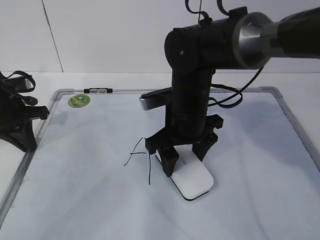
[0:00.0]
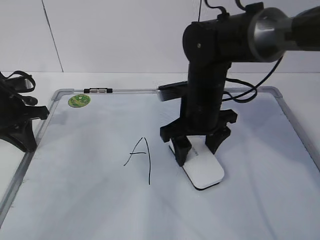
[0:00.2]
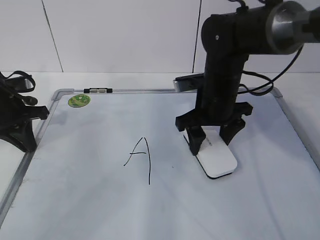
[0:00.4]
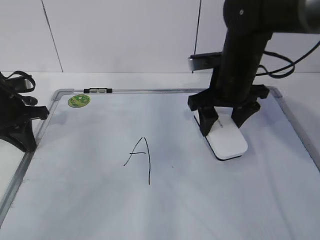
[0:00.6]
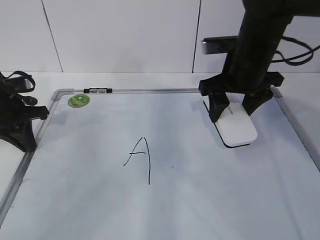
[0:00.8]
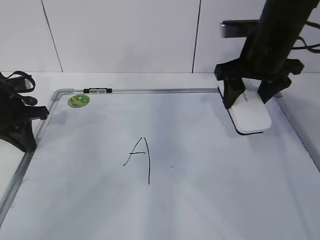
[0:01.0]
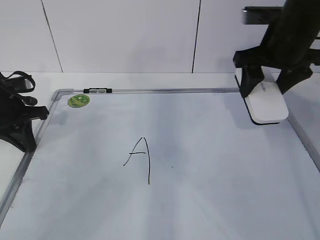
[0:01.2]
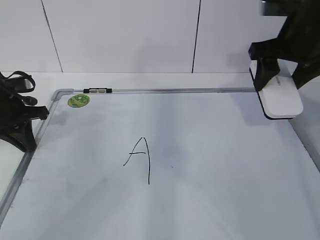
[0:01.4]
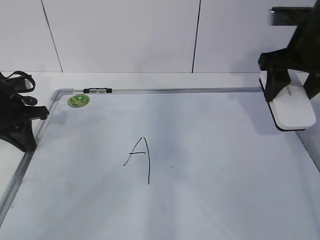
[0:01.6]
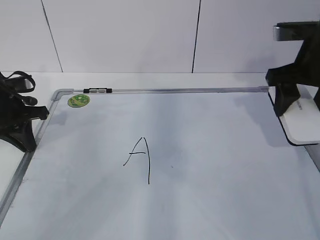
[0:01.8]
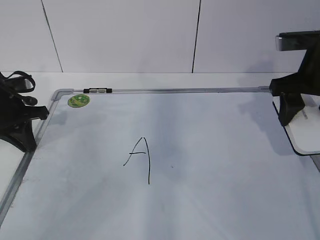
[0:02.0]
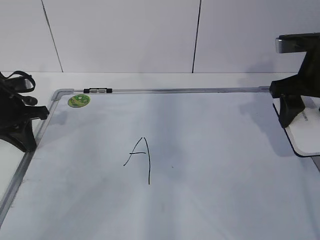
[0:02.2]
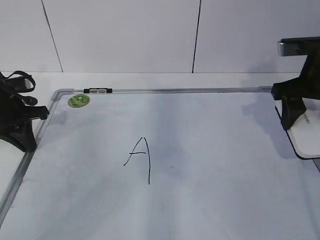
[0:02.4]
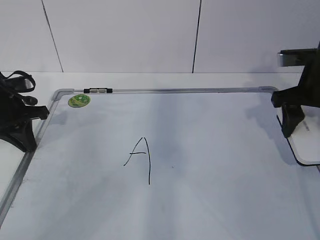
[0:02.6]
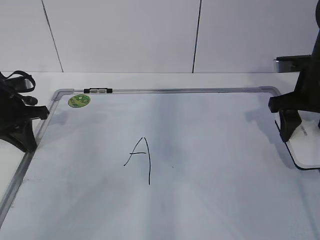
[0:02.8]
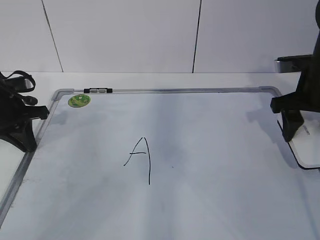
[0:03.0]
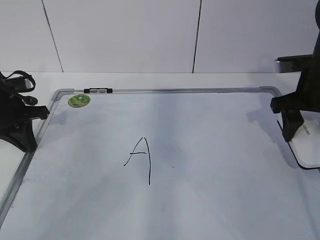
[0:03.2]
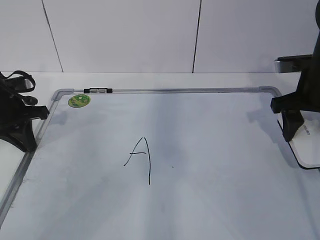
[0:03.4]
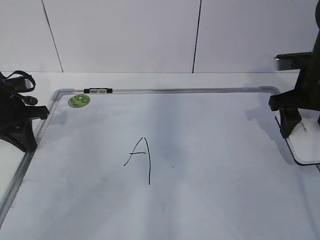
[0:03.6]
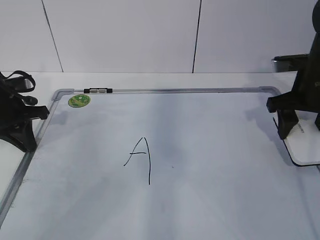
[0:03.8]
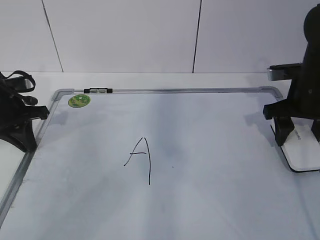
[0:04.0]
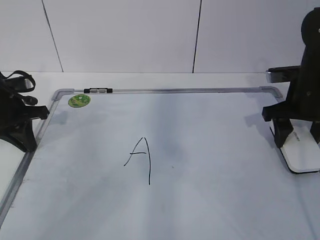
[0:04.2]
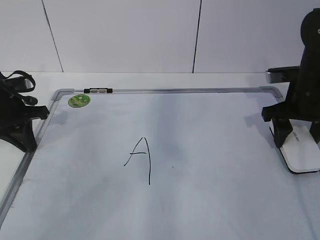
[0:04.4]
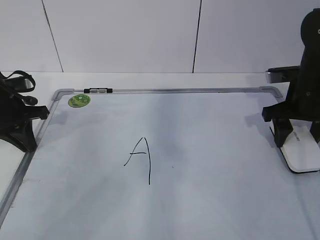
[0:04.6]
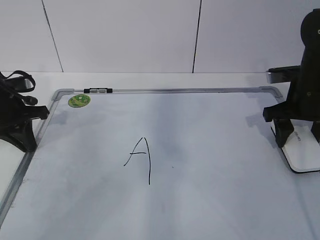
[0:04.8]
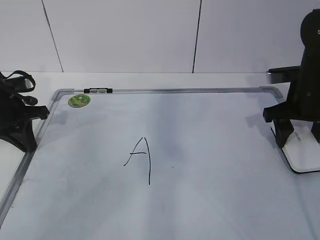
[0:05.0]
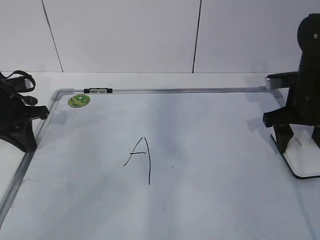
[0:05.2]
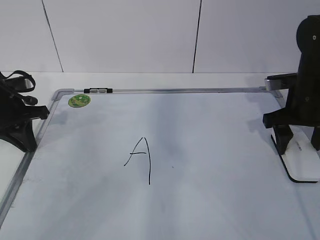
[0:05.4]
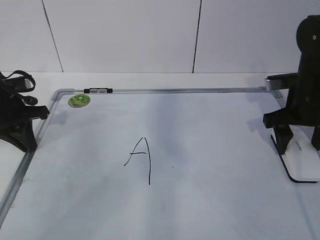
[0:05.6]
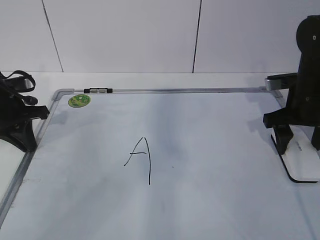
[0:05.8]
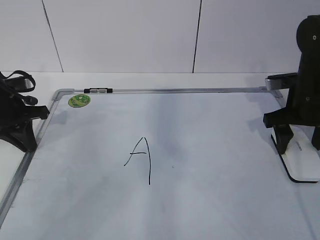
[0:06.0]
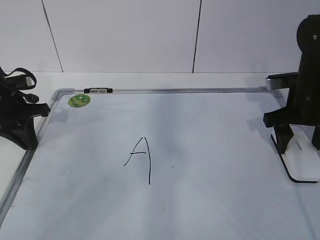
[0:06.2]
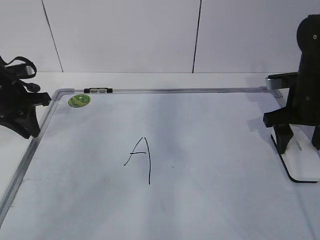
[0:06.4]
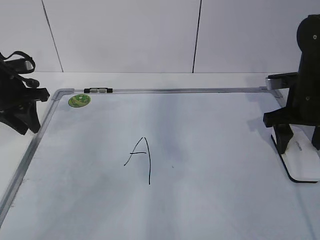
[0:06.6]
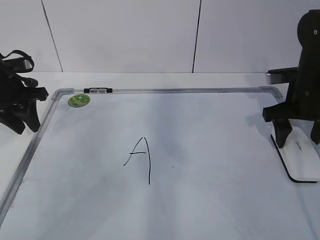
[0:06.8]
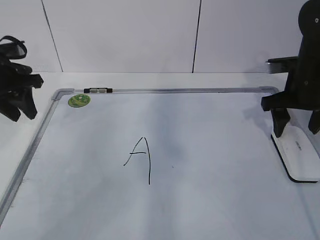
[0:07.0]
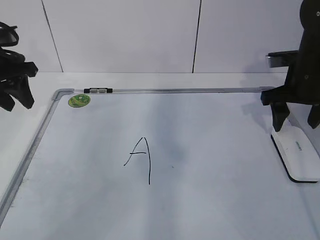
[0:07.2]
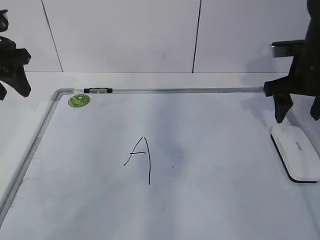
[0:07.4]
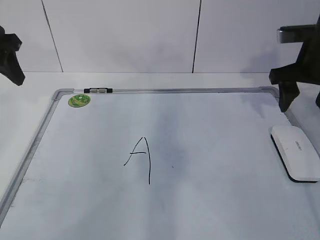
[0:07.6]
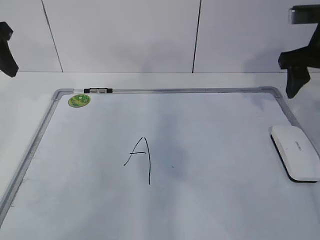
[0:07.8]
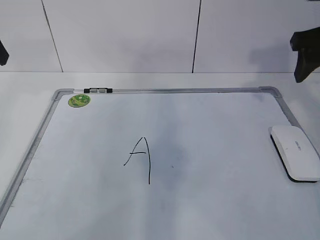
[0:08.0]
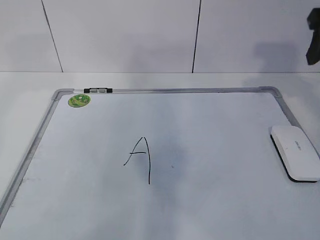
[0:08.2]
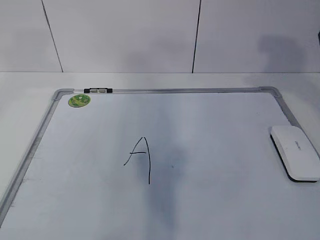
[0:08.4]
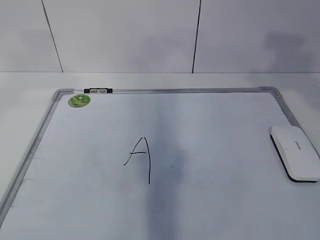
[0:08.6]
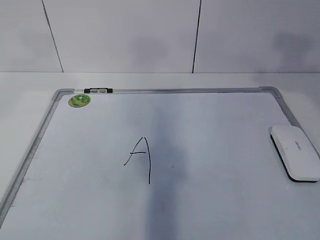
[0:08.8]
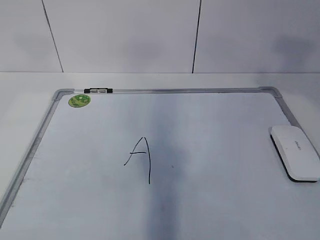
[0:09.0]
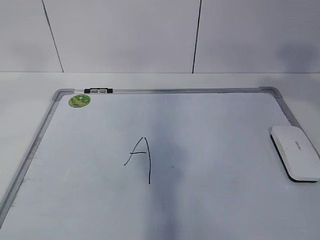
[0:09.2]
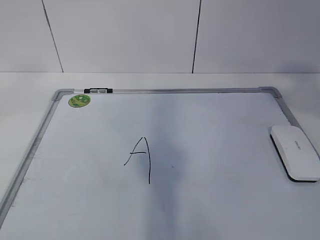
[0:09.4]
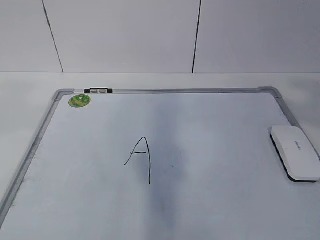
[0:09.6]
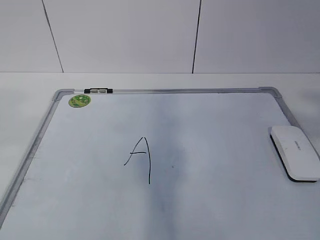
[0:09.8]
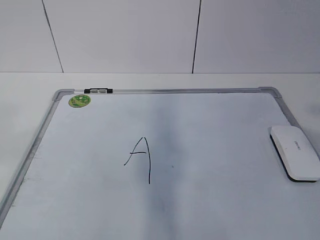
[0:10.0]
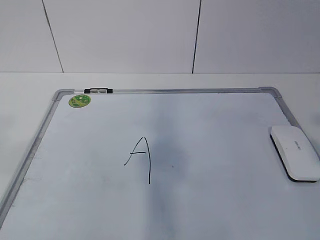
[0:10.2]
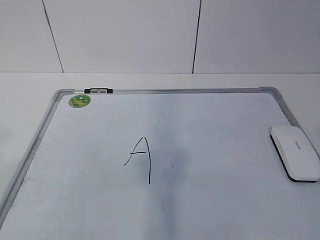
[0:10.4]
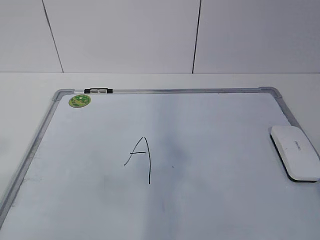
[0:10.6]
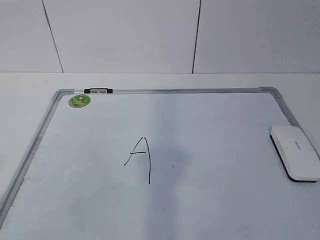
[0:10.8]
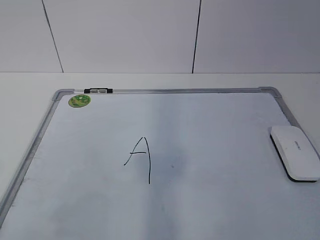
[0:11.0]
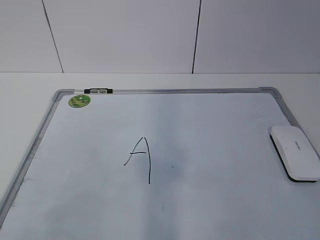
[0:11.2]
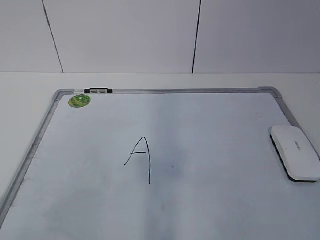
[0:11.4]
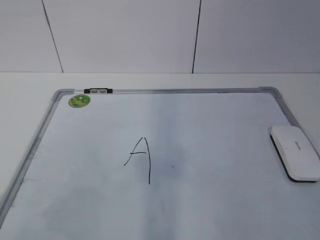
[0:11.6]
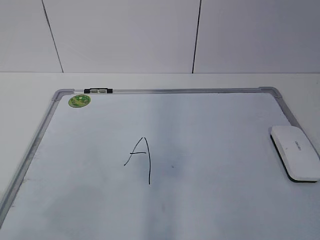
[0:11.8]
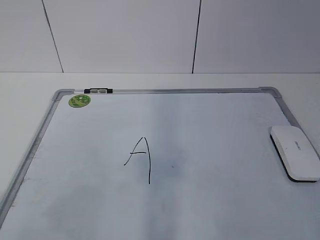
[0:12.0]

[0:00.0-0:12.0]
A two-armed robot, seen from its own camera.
Task of the whole recording: pick up the eraser on the blackboard and erase the letter "a".
0:00.0 to 0:01.6: The right gripper moves to the right and upward, some 20 cm.
0:01.6 to 0:03.0: The right gripper shifts roughly 5 cm downward.
0:03.0 to 0:04.4: There are only small adjustments of the grippers.
0:04.4 to 0:06.0: The right gripper opens up.
0:06.0 to 0:07.6: The left gripper moves upward, roughly 15 cm, and opens its fingers. The right gripper heads upward, covering roughly 10 cm.
0:07.6 to 0:09.0: The left gripper travels backward and upward by approximately 25 cm; the right gripper travels upward and backward by roughly 30 cm, and opens up.
0:09.0 to 0:10.4: The grippers both shift backward and downward by some 20 cm.

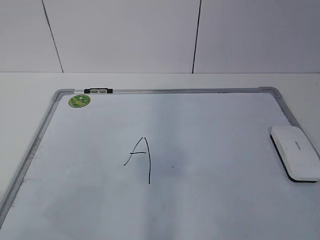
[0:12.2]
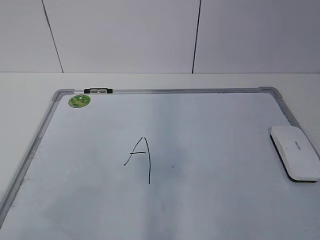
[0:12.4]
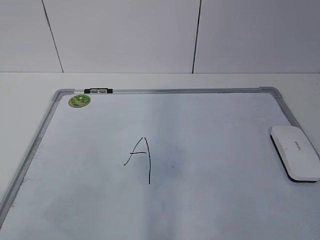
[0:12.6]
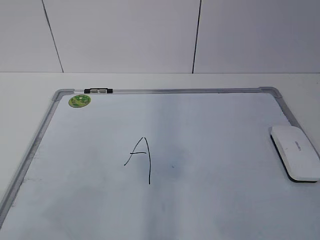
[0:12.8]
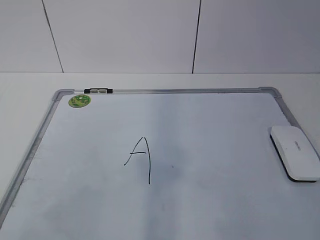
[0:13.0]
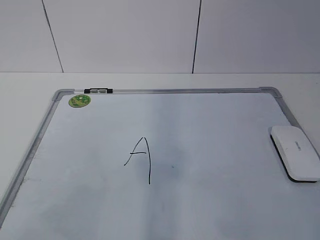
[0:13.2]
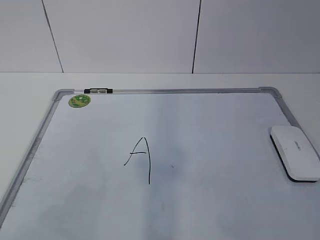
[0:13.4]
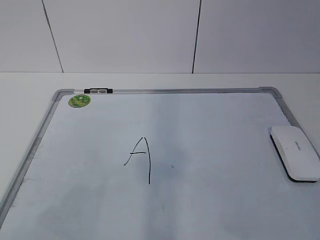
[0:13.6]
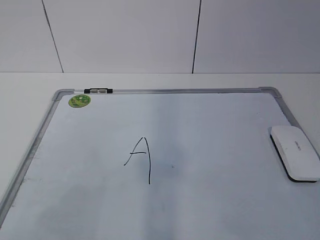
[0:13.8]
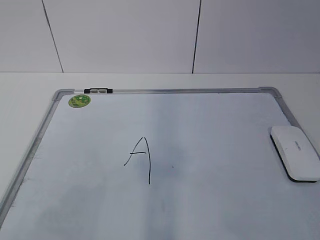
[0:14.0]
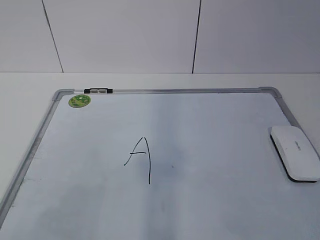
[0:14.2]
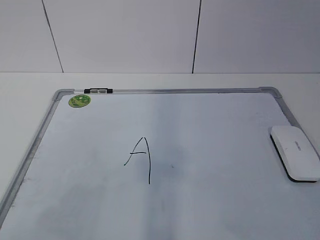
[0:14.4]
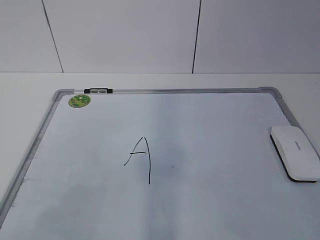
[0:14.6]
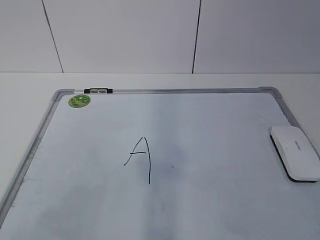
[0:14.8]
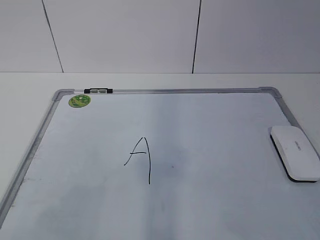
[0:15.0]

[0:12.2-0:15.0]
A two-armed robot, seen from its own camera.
Task of the whole recording: pick up the eraser on the blackboard and erase the letter "a".
0:13.6 to 0:15.0: Both grippers stay put.

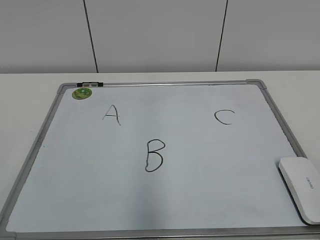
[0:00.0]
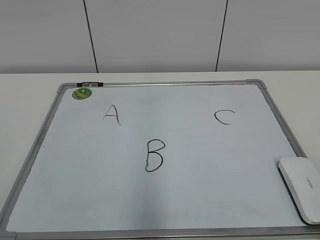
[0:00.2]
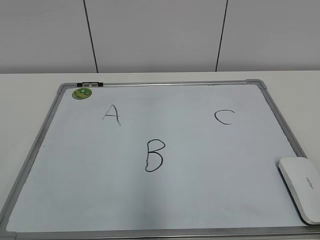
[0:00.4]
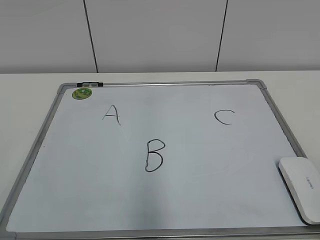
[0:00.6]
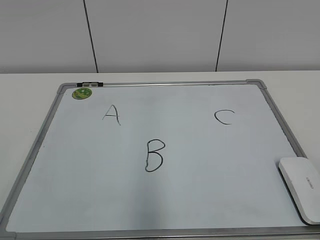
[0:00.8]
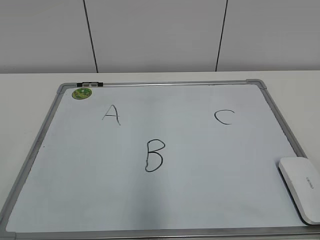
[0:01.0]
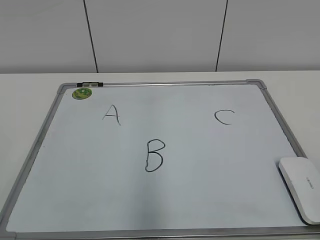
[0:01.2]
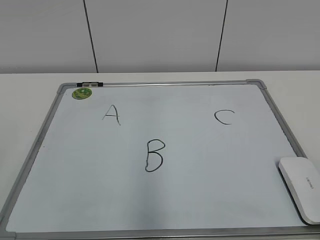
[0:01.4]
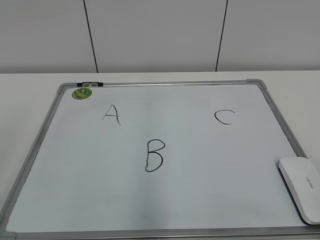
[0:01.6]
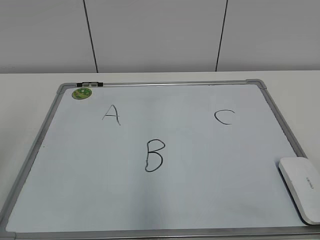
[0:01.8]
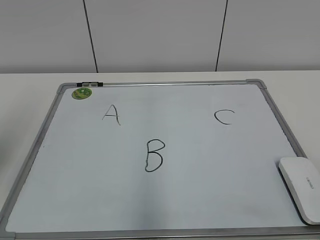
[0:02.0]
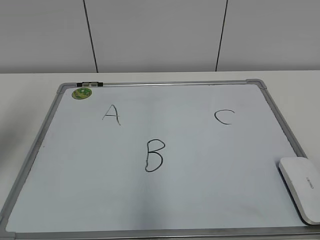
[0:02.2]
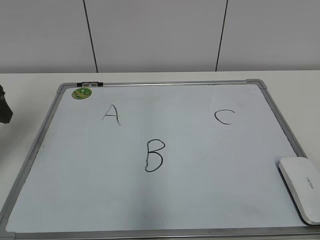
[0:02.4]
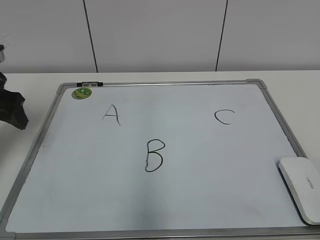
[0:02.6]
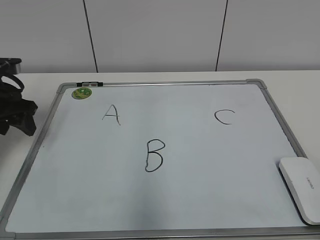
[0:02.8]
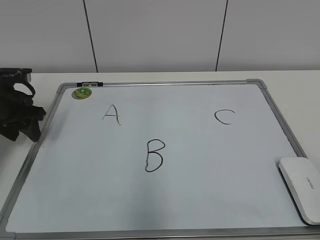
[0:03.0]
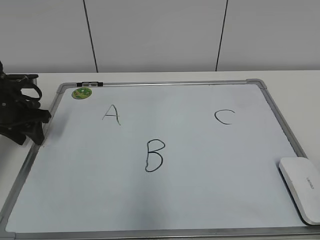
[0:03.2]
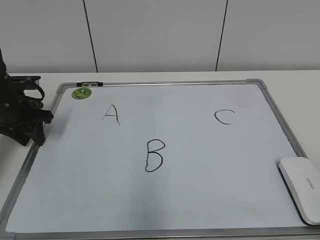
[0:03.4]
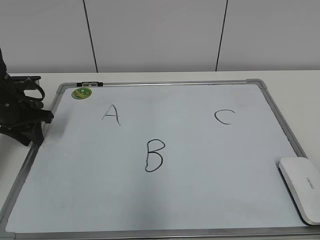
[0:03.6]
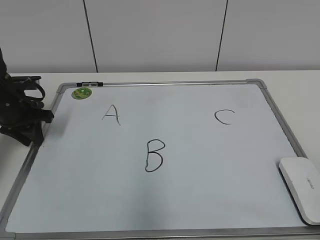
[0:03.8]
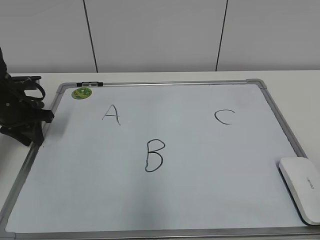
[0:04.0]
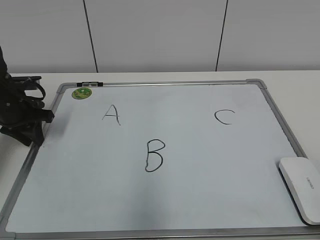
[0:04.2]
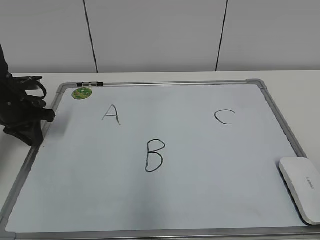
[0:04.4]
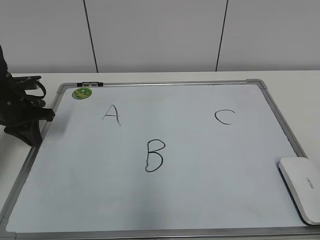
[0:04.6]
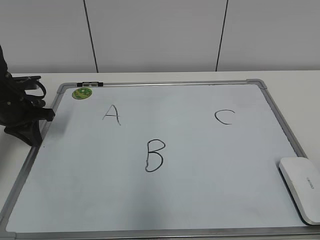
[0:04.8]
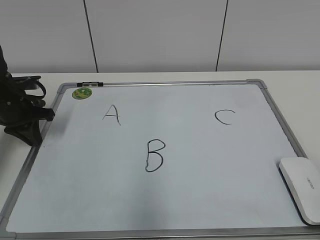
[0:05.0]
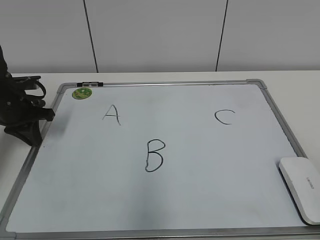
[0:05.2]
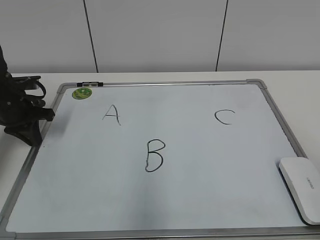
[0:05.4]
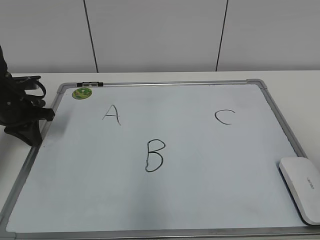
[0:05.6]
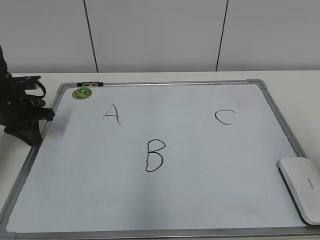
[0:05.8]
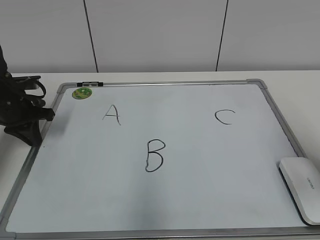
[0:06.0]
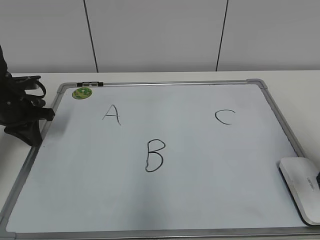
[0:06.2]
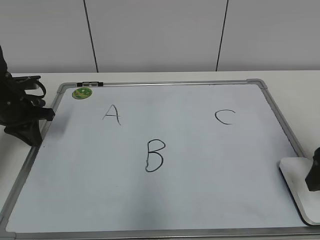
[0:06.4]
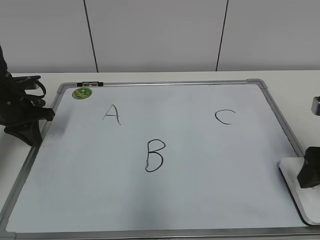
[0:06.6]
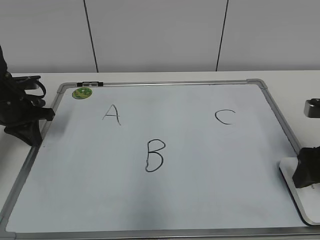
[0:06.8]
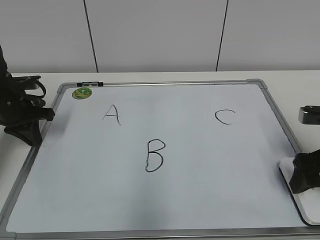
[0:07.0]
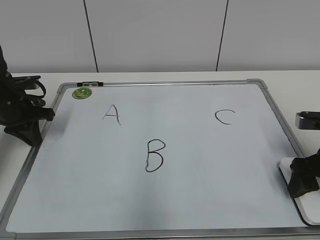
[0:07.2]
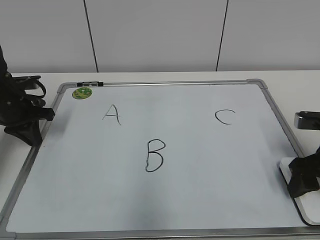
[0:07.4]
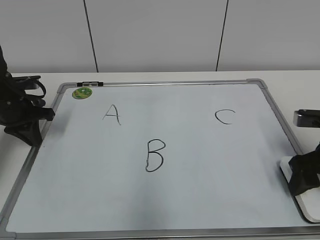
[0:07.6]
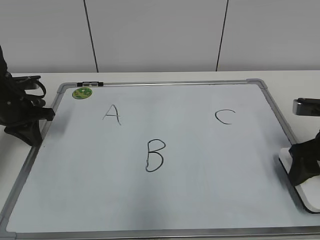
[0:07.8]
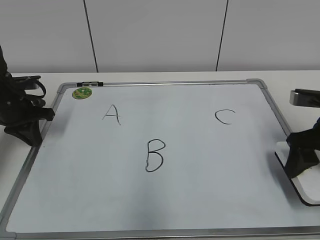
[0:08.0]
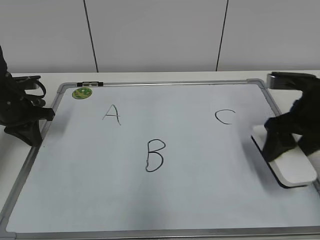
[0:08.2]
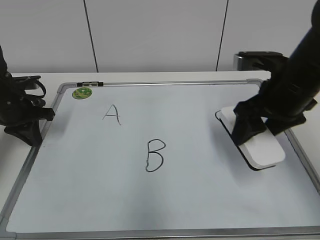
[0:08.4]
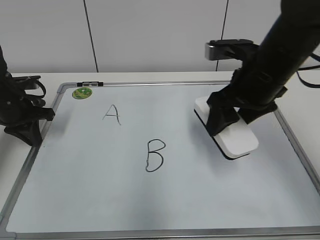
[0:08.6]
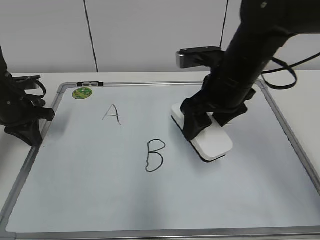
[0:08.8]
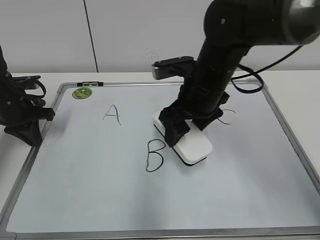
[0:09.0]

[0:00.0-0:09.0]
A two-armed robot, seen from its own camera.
Task of the whole recording: pick up the eraser on the blackboard and erase the letter "B".
Step, 0:00.0 to 0:04.4: Hold the drawing board steady with your left hand.
Step, 0:04.6 to 0:07.4: Grab the eraser with your right hand.
0:01.6 to 0:03.0: The left gripper heads forward and downward, covering approximately 35 cm.
0:03.0 to 0:04.4: The left gripper closes its fingers.
0:04.4 to 0:06.0: The right gripper heads forward, covering about 20 cm.
0:06.0 to 0:07.6: The right gripper shifts approximately 15 cm downward and forward, and opens, then closes once more.
0:07.6 to 0:09.0: The right gripper shifts roughly 20 cm to the left.
